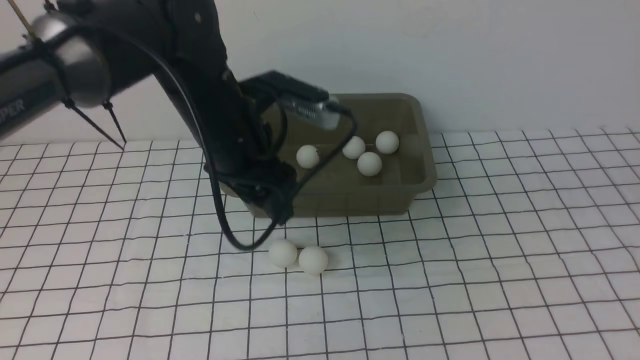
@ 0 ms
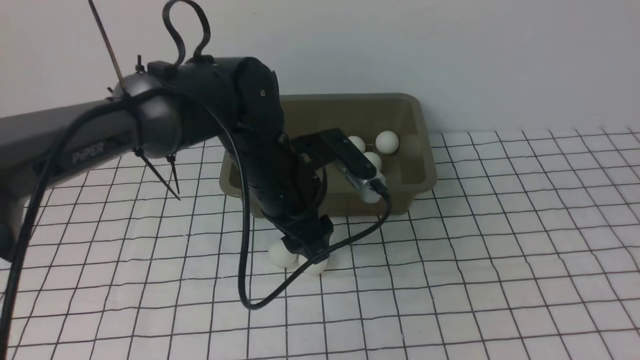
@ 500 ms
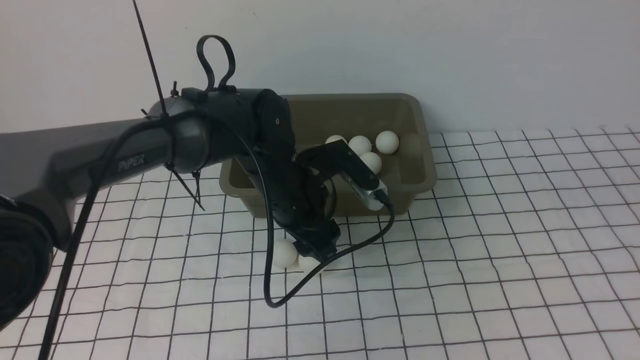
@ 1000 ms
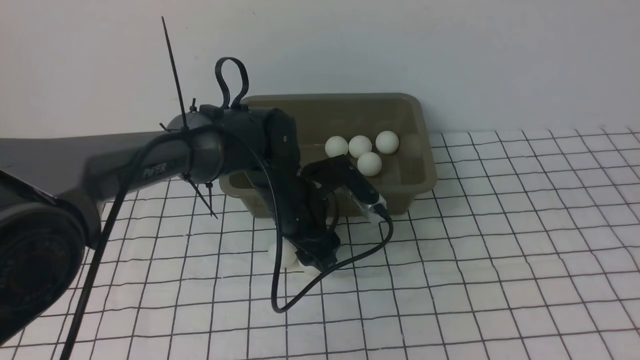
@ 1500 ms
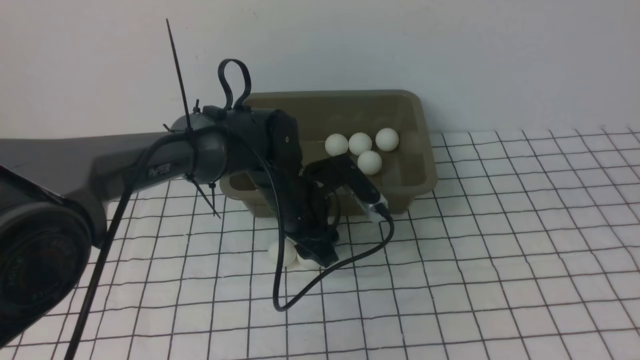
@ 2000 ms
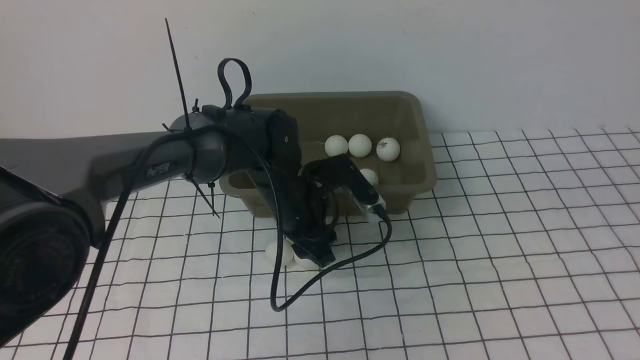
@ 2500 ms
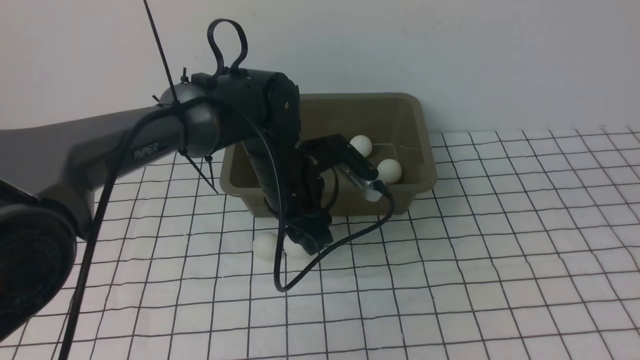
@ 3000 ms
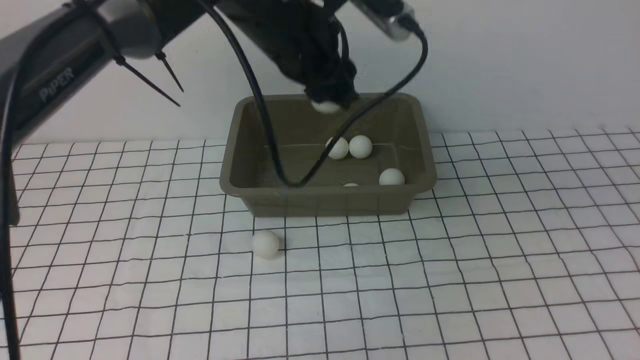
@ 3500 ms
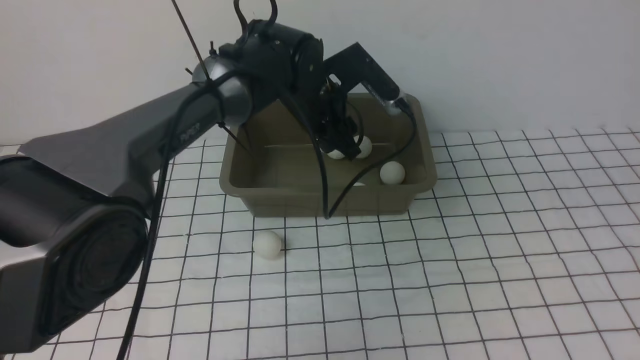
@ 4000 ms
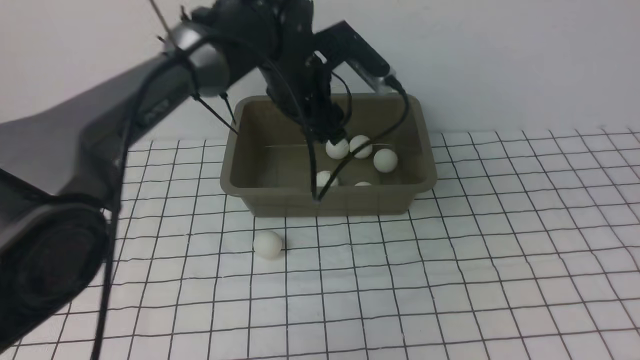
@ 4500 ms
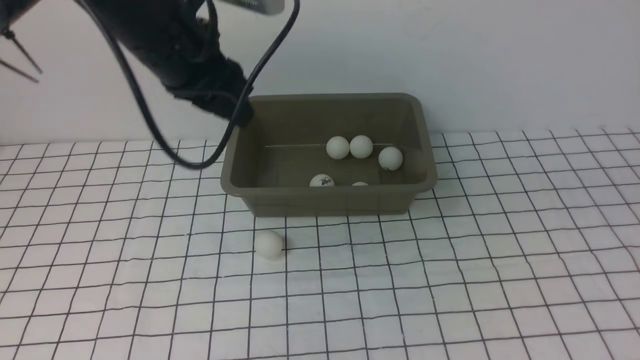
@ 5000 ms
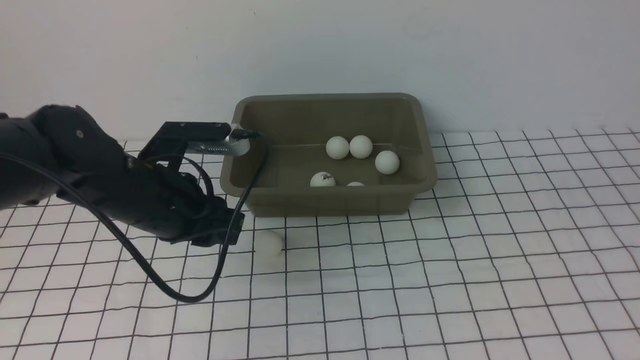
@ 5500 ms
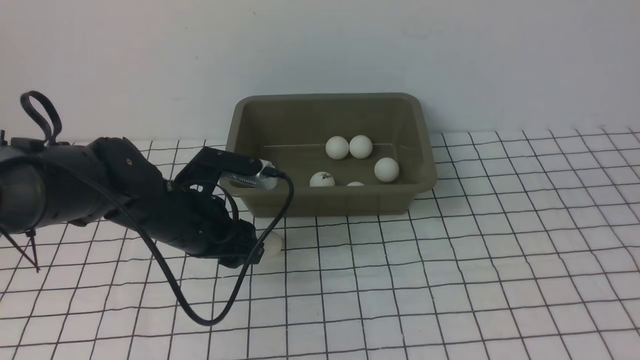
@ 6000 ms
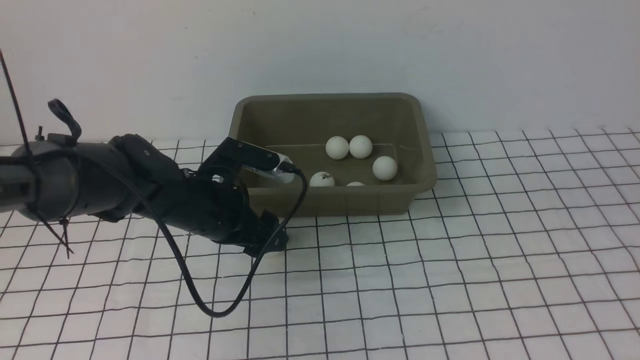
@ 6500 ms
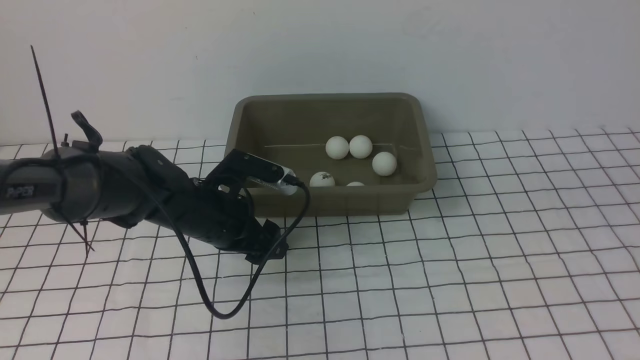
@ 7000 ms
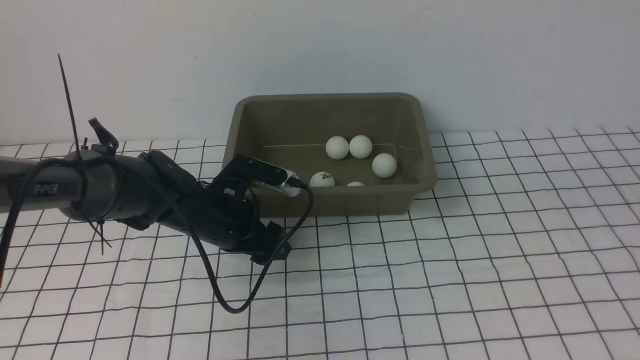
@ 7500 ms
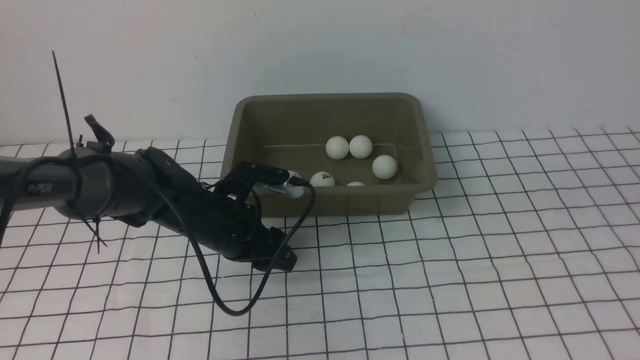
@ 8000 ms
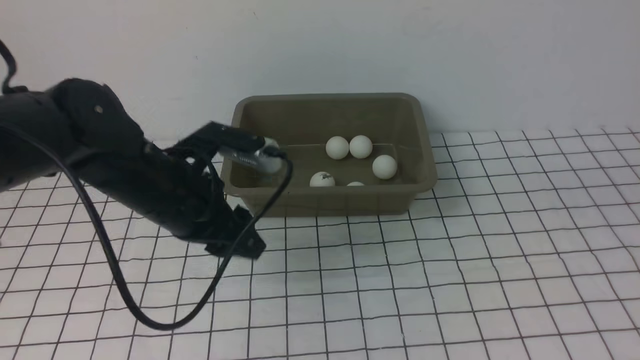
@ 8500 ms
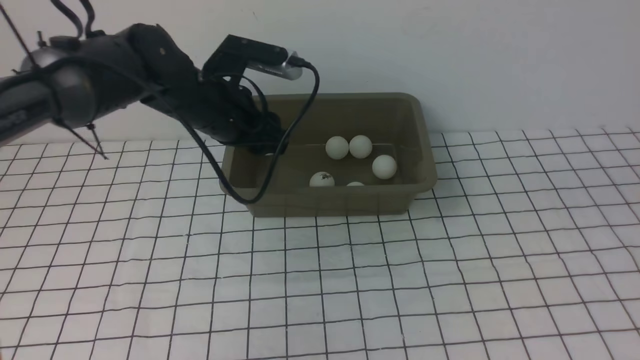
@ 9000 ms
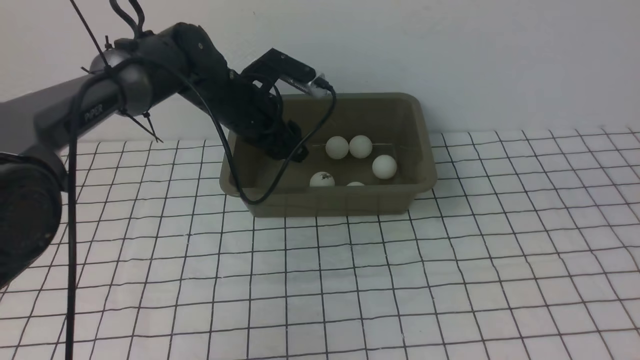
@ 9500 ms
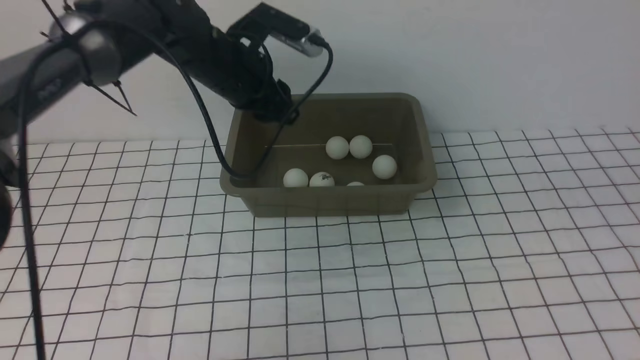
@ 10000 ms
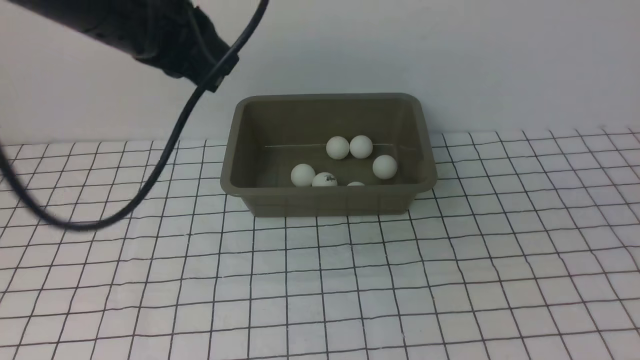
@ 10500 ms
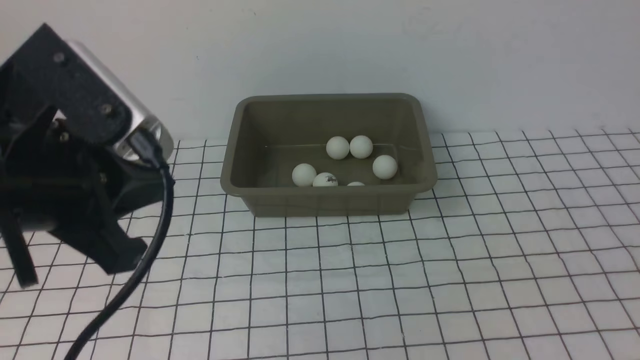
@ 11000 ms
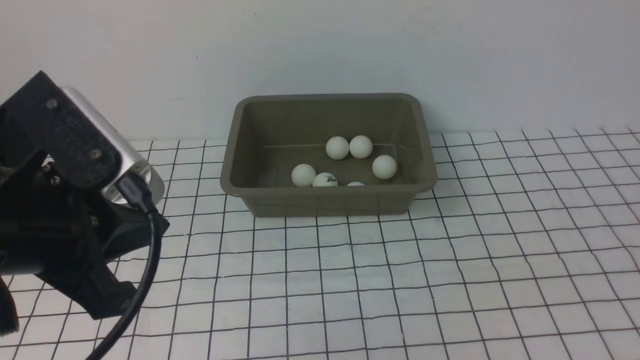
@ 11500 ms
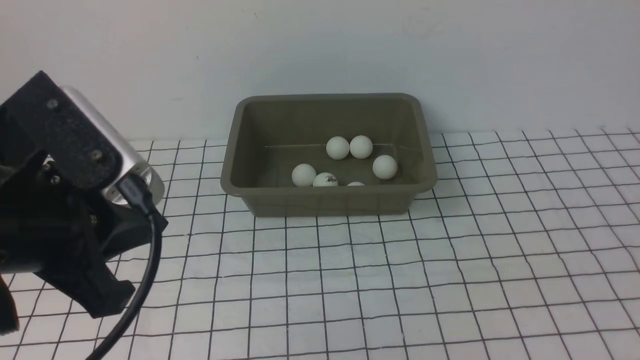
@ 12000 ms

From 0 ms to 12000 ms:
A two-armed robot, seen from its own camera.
Step, from 0 ms to 3000 ms: use the left arm to clamp the table tennis ball closest to it.
Step, from 3500 ms to 4000 ms: use the left arm to put the table tennis ball into the box.
Step, from 4500 ms to 8000 ms: use the left arm to clamp the table tennis ball closest to it.
Step, from 8500 ms to 9500 ms: use the left arm to put the table tennis ball into the box.
From 0 ms to 2000 ms: The left gripper is displaced downward and to the right by roughly 15 cm.
From 2000 ms to 4000 ms: The left gripper is displaced upward and forward by approximately 15 cm.
From 4000 ms to 6000 ms: The left gripper heads backward, to the left and downward, covering some 20 cm, and closes, then opens again.
From 6000 ms to 8000 ms: The grippers move only a little.
From 8000 ms to 10000 ms: The left gripper is displaced upward and forward by roughly 15 cm.
From 10000 ms to 12000 ms: The left gripper heads backward, covering approximately 30 cm, and closes its fingers; the right gripper is displaced downward by approximately 10 cm.

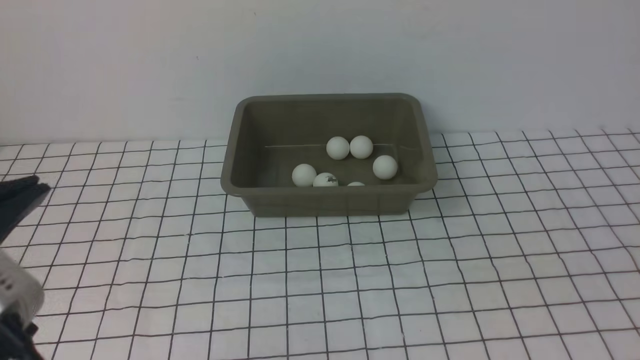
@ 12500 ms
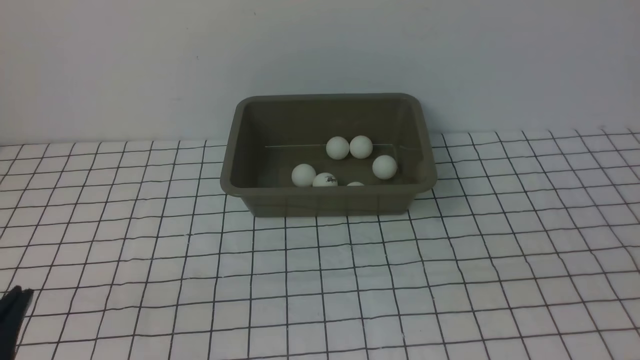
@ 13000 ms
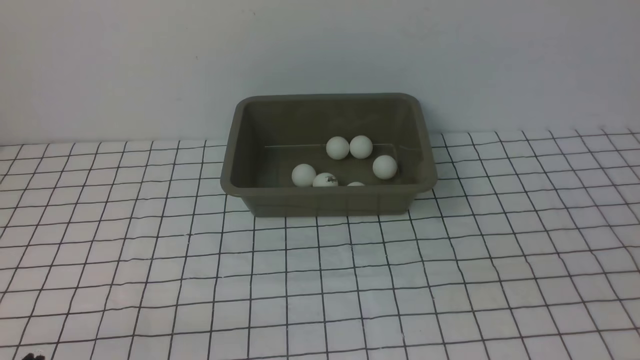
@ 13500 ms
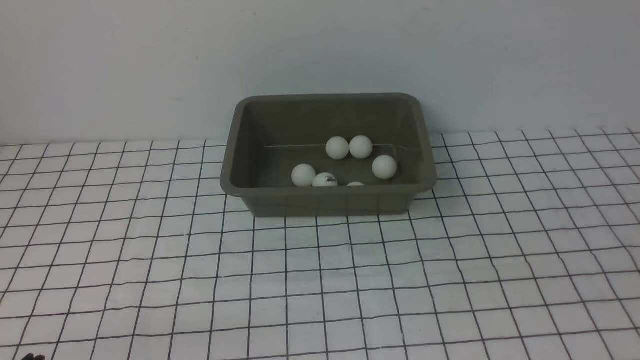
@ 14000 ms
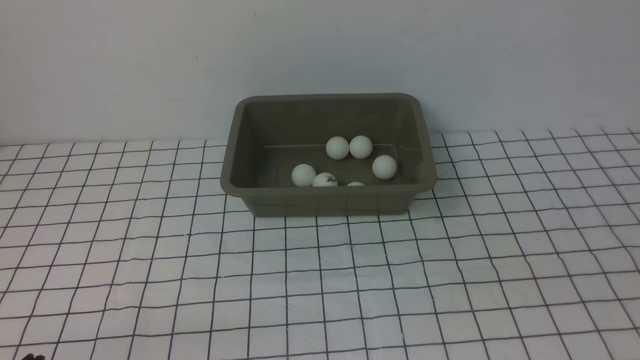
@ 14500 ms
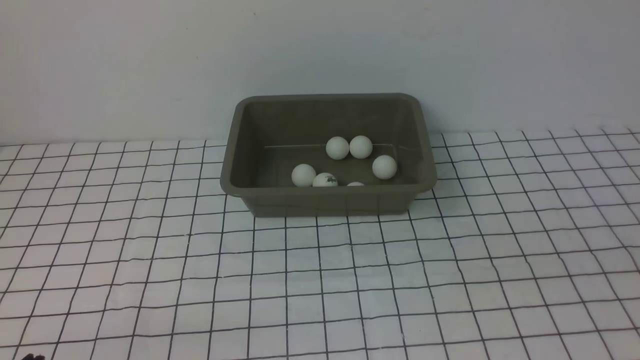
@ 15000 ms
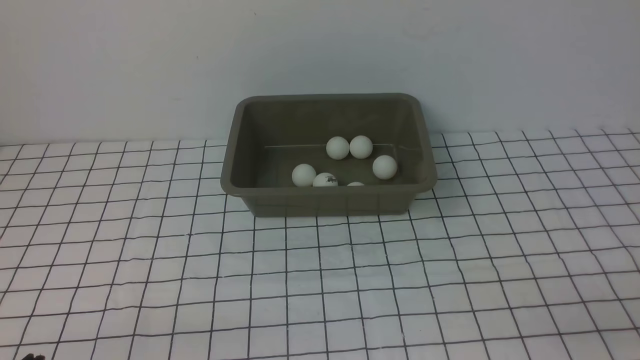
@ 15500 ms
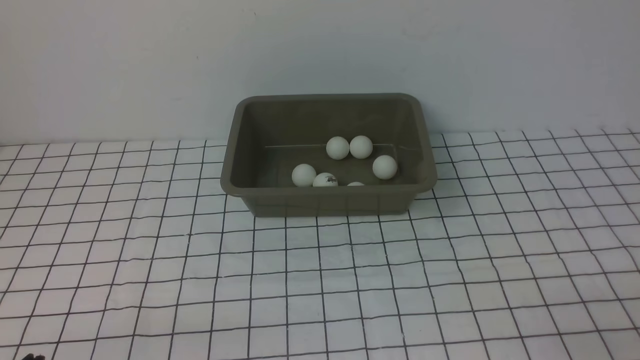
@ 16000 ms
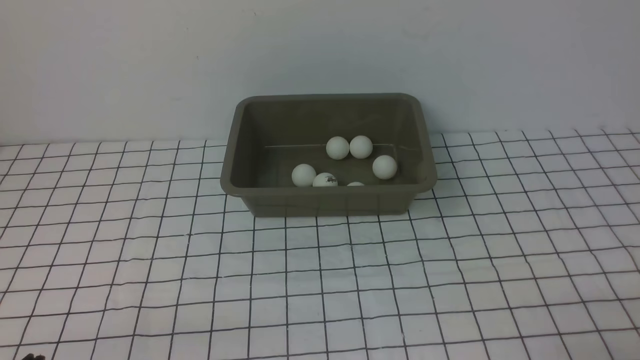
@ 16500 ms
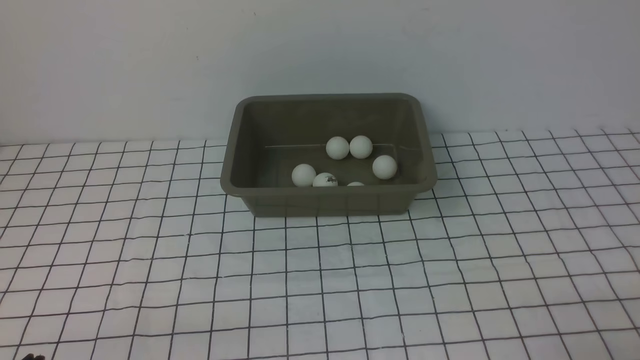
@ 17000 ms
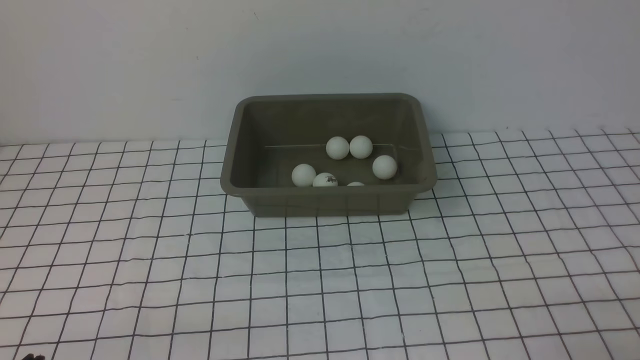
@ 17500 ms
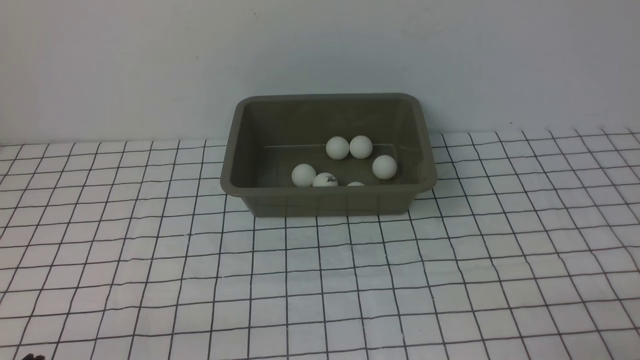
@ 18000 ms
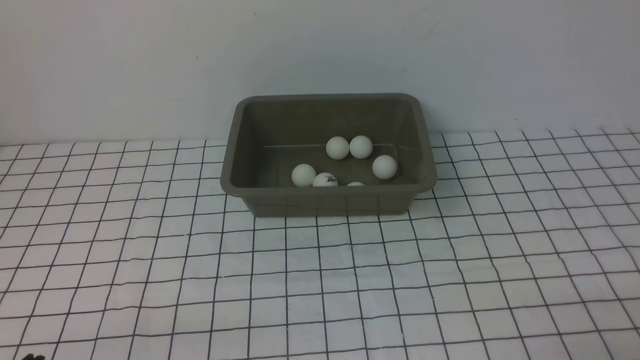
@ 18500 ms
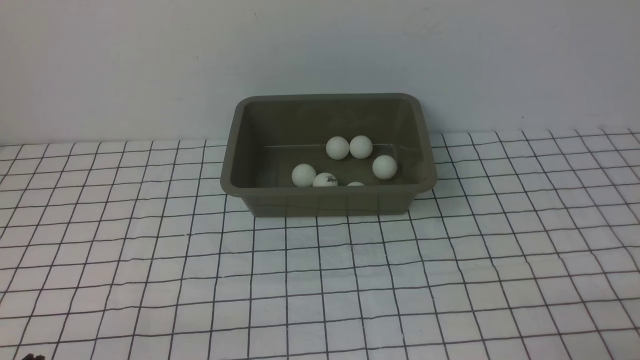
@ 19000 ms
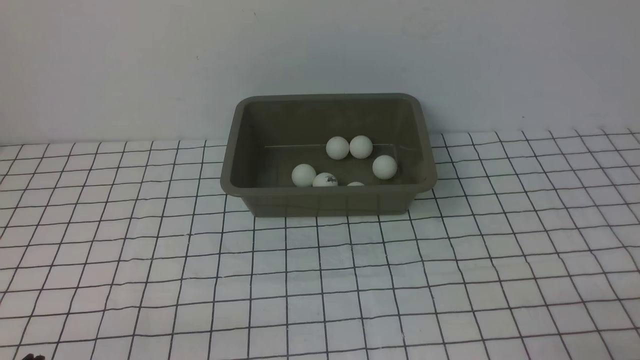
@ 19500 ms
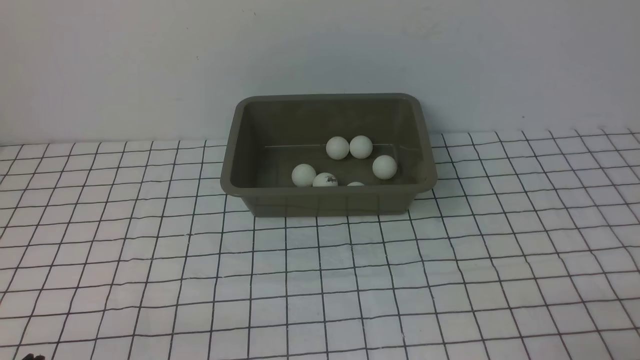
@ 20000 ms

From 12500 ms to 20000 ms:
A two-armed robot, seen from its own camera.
From 12500 ms to 14500 ms: The left gripper is displaced downward by approximately 15 cm.
From 16500 ms to 20000 ms: The two grippers keep their place.
